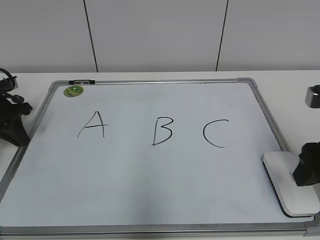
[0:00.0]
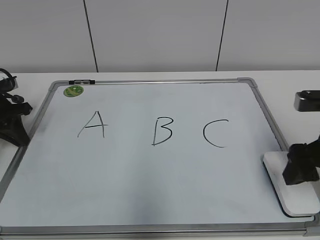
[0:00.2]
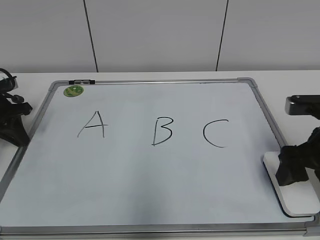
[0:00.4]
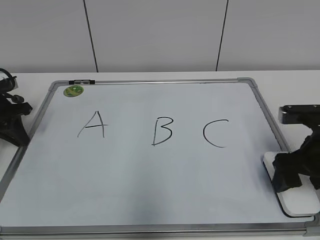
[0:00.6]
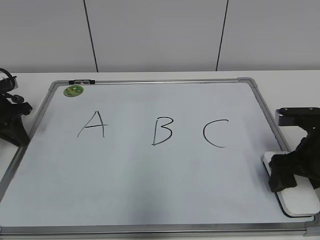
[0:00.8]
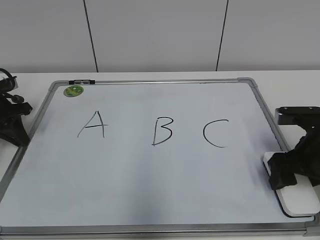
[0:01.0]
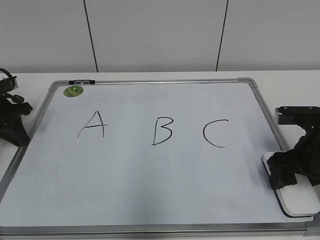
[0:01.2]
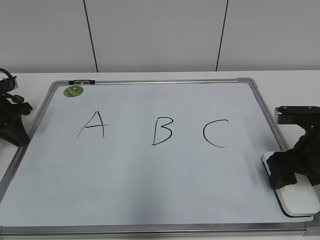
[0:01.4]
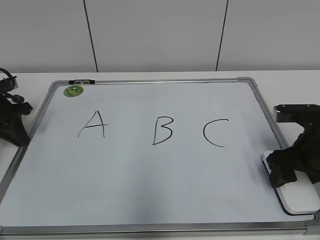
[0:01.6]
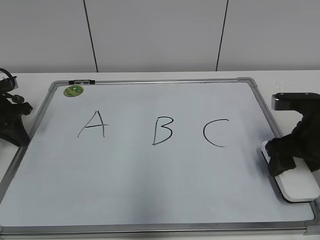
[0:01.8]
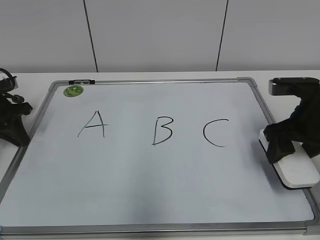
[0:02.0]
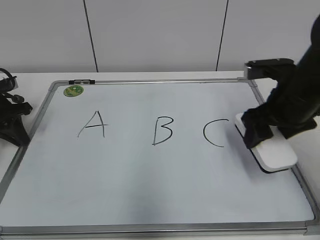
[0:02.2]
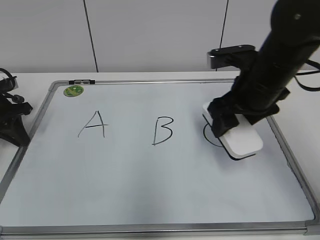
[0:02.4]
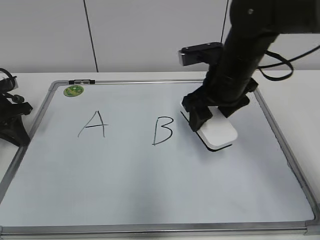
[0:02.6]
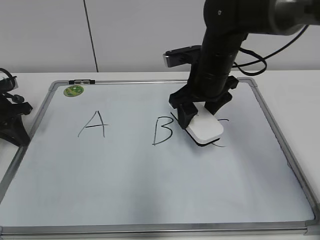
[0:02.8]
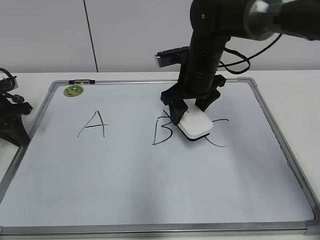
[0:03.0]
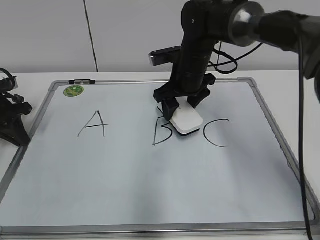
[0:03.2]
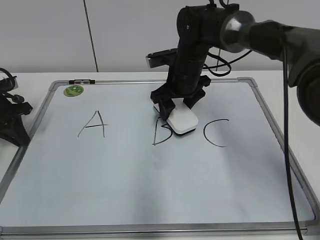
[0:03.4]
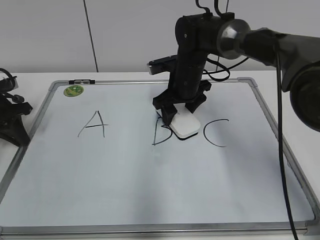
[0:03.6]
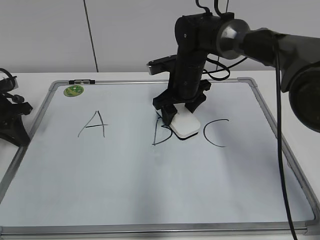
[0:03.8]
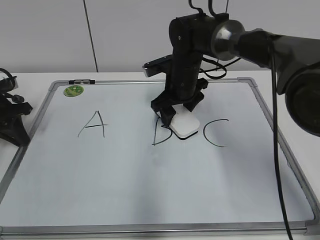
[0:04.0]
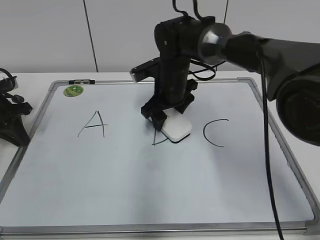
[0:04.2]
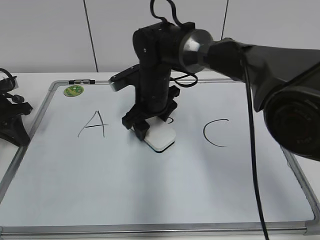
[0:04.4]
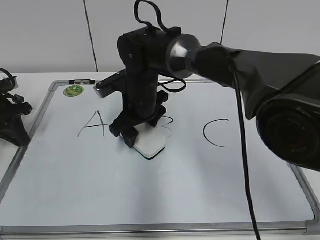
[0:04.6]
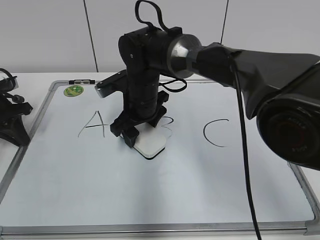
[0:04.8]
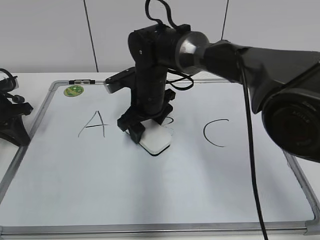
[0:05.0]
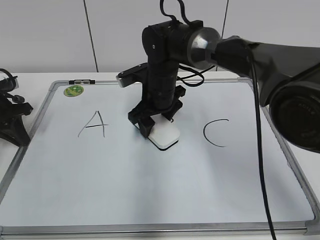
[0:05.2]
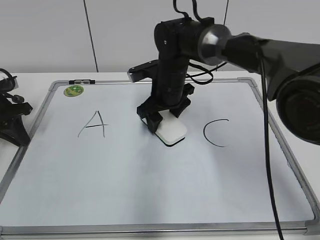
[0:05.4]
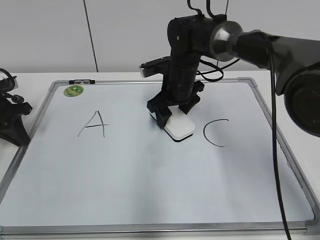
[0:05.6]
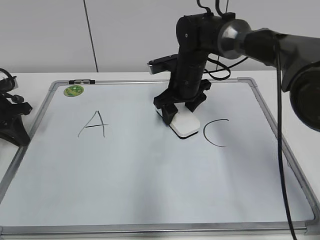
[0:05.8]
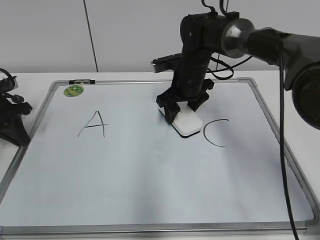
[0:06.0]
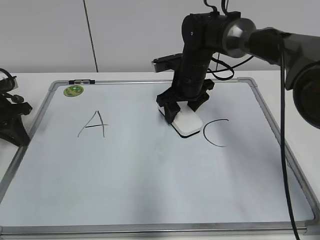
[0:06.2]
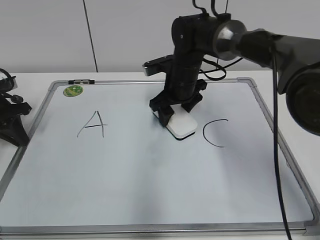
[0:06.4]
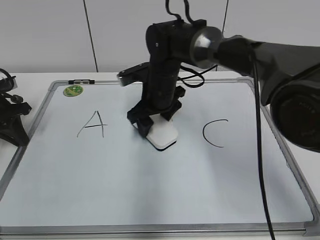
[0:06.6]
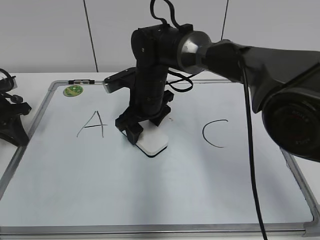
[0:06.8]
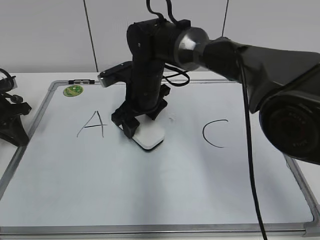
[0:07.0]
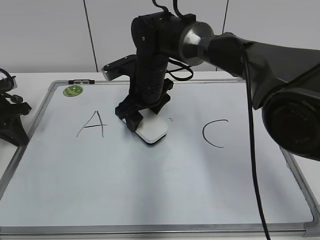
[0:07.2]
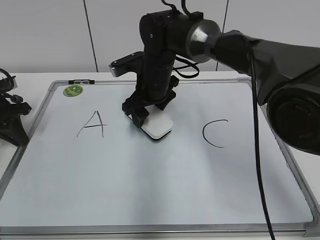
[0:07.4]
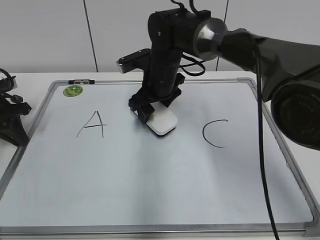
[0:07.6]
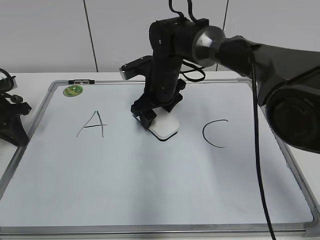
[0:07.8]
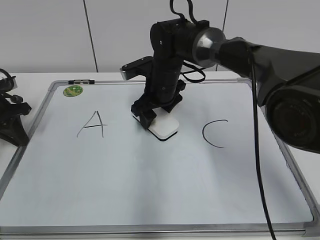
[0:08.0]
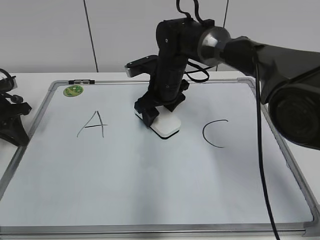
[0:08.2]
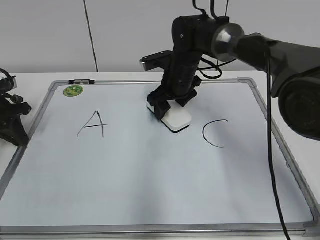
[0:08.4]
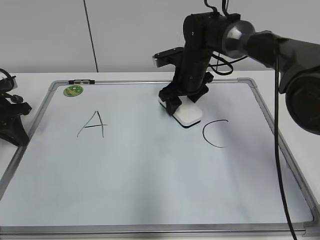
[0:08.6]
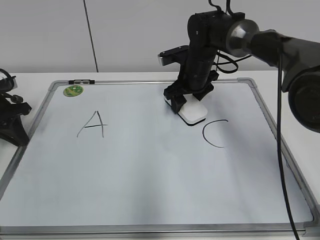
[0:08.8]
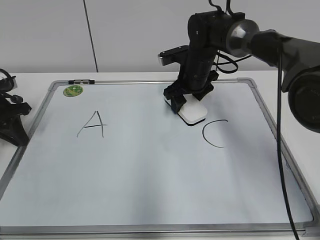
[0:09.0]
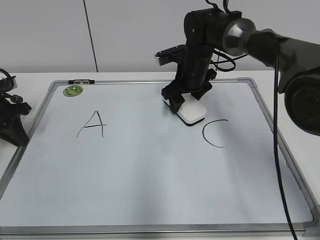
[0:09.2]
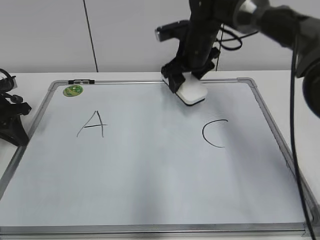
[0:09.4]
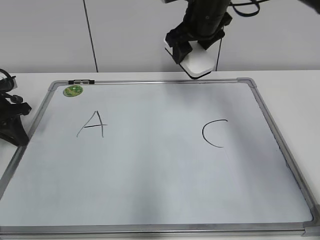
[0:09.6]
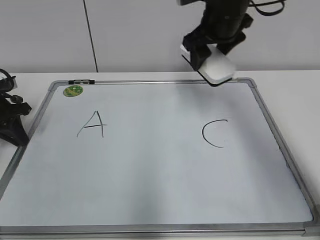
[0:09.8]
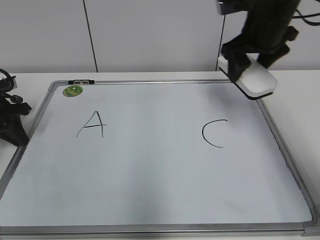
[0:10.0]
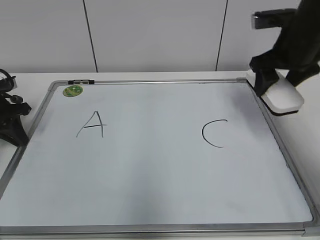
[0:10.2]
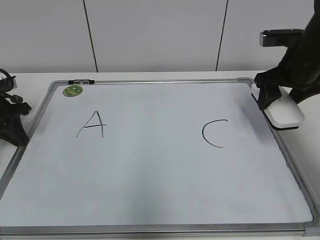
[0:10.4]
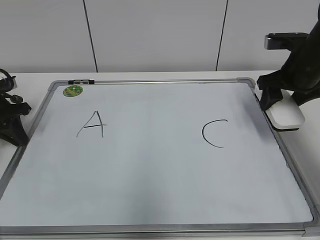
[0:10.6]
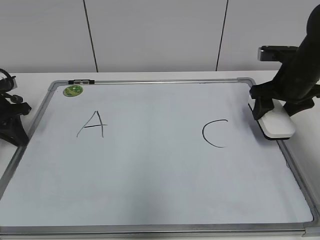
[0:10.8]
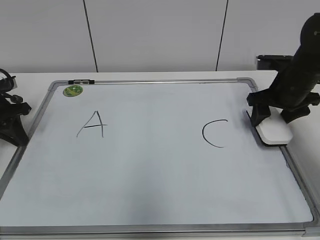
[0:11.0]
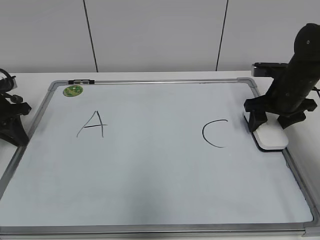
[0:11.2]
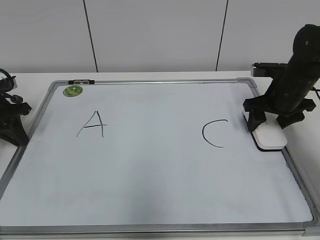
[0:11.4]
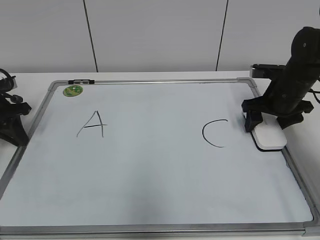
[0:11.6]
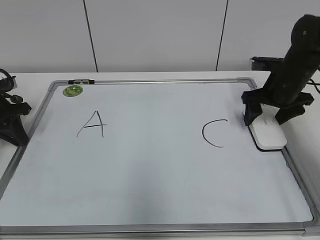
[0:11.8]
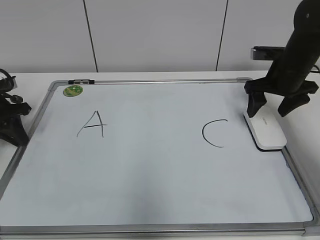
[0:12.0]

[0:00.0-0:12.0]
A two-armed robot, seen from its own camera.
Task of the whole recording: pick up the eraser on the blackboard and erase the letter "B".
Step, 0:01.8 to 0:08.6: Erase the letter B with your right hand.
Step, 0:08.8 to 0:11.4: Put down the eraser with your right hand.
0:00.0 to 0:01.6: The right gripper heads downward and forward, covering approximately 10 cm, and closes up.
0:01.6 to 0:03.0: The right gripper goes about 20 cm to the left and forward.
0:03.0 to 0:04.4: The right gripper shifts some 10 cm to the left.
0:04.4 to 0:06.0: The right gripper moves to the right, about 10 cm.
0:06.0 to 0:07.6: The right gripper shifts some 5 cm to the left.
0:07.6 to 0:09.0: The right gripper heads to the right, covering some 10 cm.
0:09.0 to 0:10.4: The right gripper moves to the right, backward and upward, roughly 20 cm.
0:10.4 to 0:12.0: The right gripper opens.

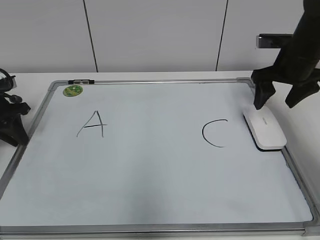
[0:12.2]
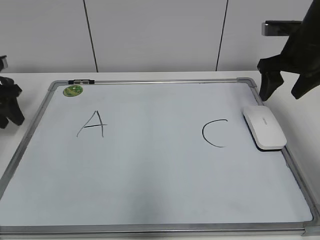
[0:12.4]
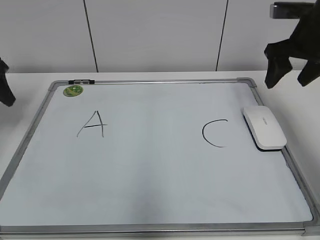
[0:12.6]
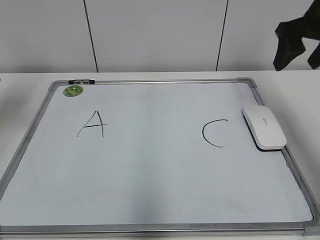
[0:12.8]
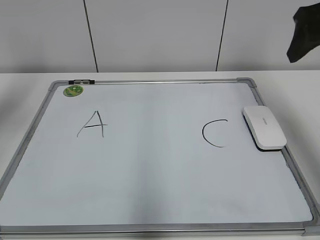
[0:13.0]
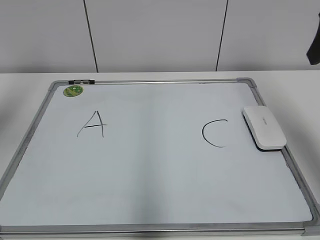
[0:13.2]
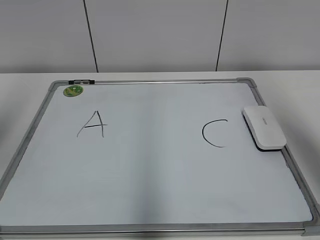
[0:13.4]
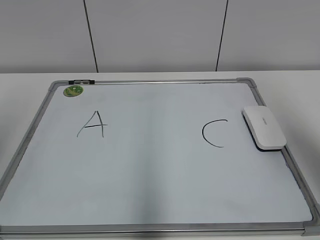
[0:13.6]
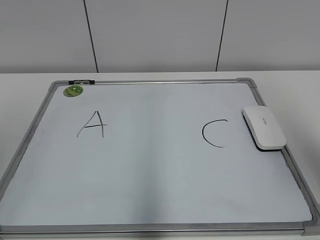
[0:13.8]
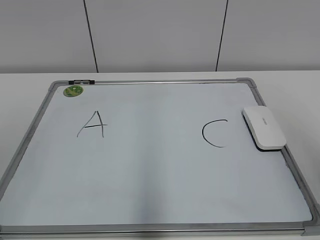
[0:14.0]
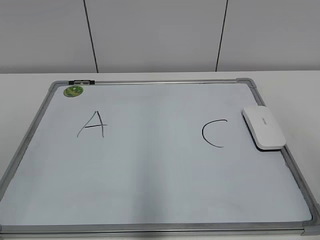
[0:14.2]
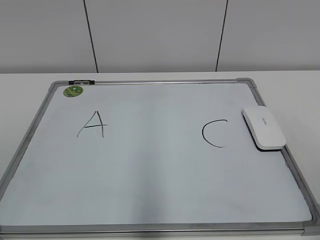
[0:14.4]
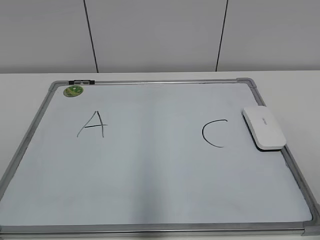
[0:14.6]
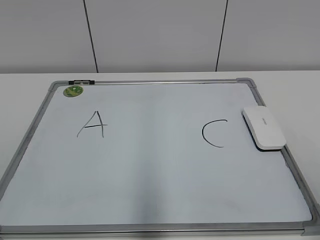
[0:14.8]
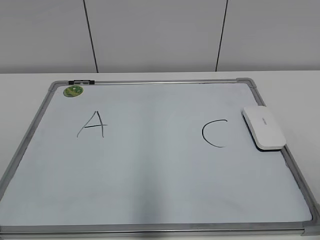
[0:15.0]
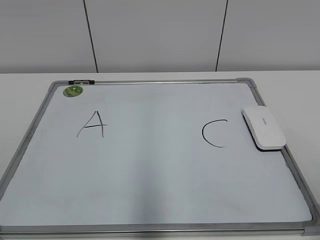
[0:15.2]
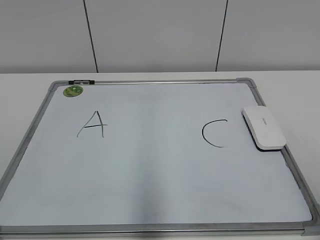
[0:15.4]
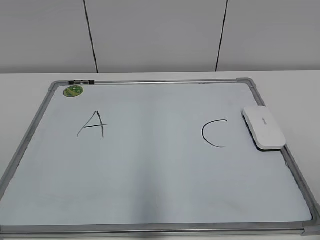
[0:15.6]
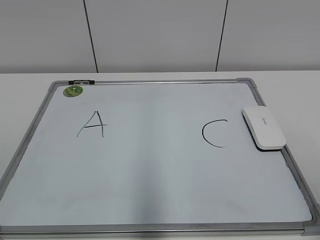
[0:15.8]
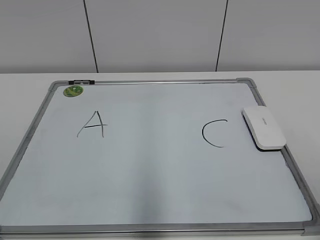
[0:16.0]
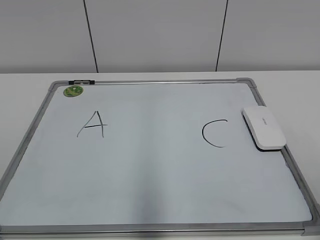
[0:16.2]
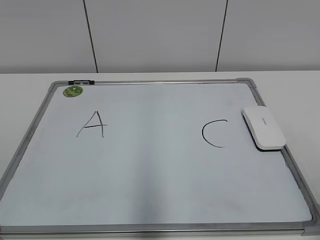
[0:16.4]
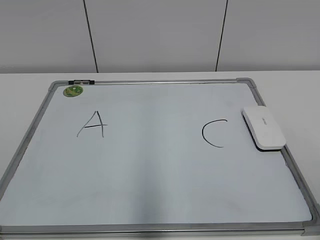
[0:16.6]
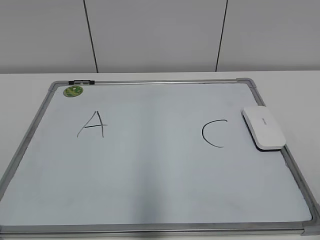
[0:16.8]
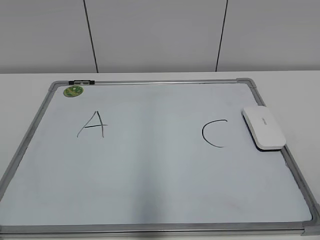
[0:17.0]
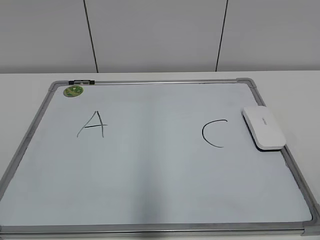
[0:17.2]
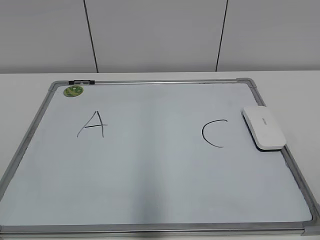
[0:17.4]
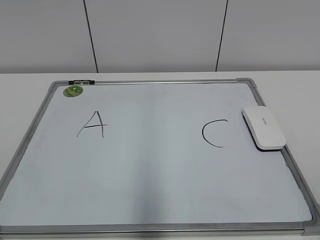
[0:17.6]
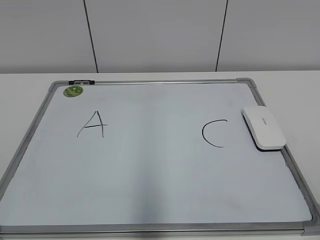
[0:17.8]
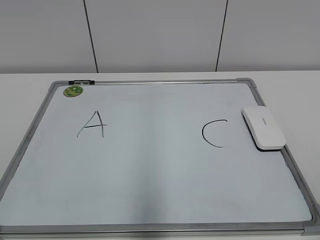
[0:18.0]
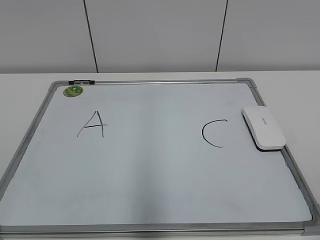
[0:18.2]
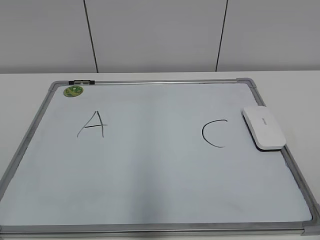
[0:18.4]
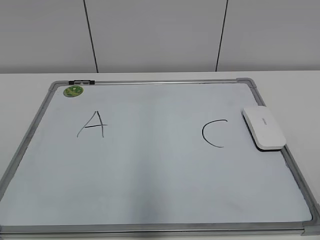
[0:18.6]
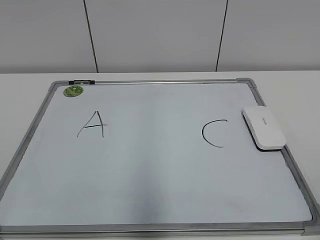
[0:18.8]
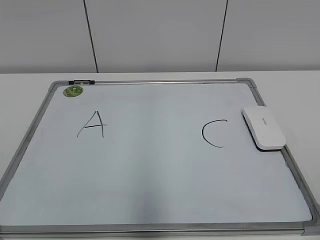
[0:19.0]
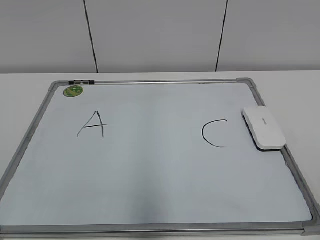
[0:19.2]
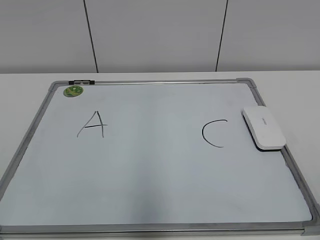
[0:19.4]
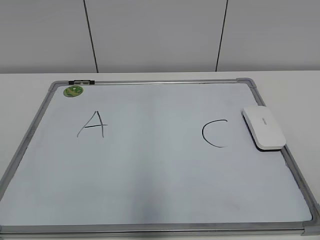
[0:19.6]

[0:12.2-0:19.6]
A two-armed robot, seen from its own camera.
Task of the whole recording: pick up the eraser on the blackboard and erase the letter "B".
0:12.2 to 0:13.6: The right gripper shifts approximately 25 cm backward and upward, while the left gripper shifts some 35 cm upward and backward, and opens.
0:13.6 to 0:15.2: The right gripper moves backward and downward, about 20 cm.
